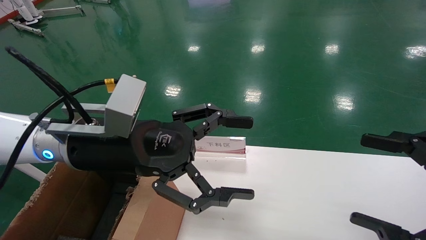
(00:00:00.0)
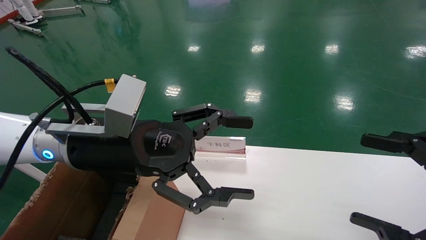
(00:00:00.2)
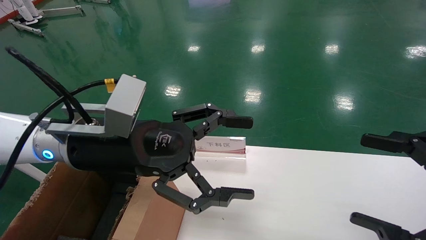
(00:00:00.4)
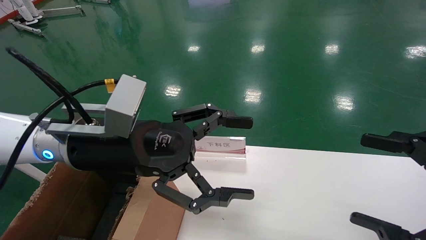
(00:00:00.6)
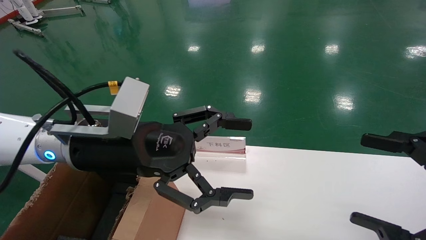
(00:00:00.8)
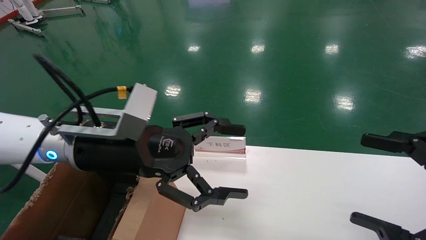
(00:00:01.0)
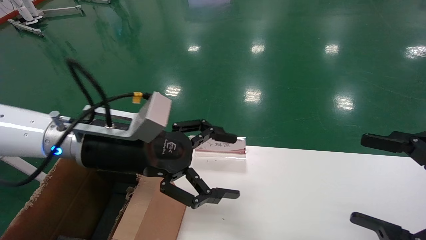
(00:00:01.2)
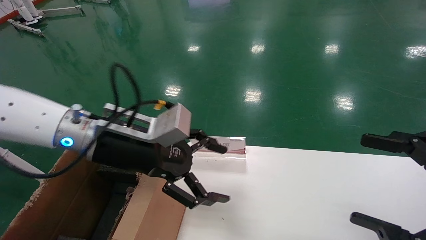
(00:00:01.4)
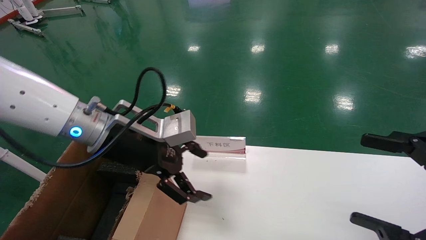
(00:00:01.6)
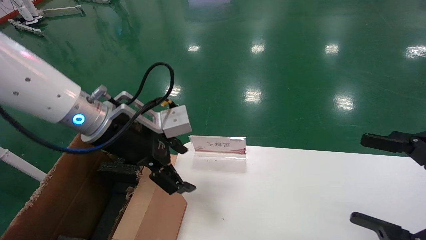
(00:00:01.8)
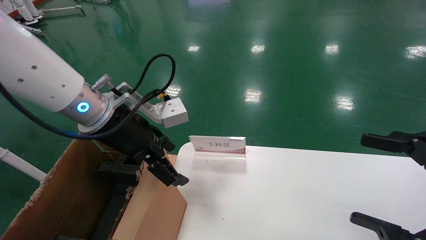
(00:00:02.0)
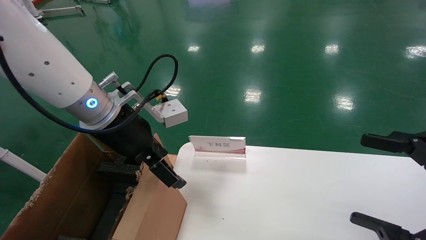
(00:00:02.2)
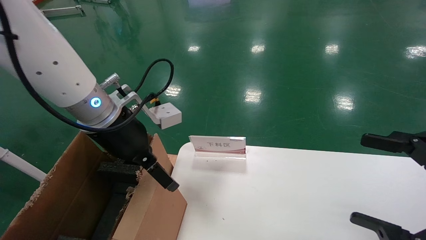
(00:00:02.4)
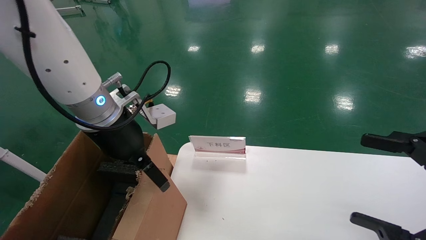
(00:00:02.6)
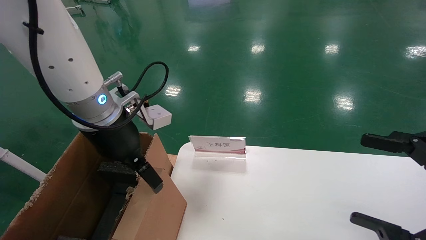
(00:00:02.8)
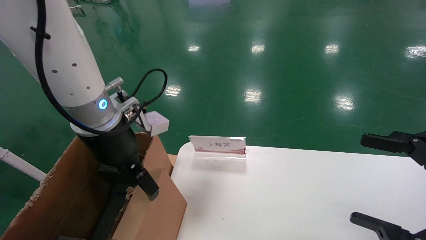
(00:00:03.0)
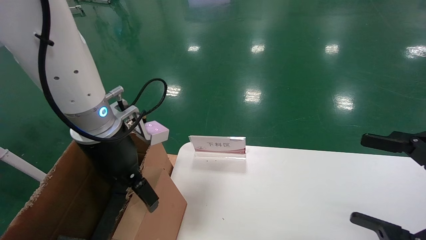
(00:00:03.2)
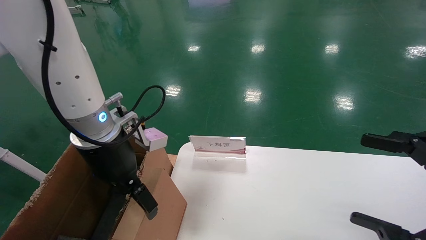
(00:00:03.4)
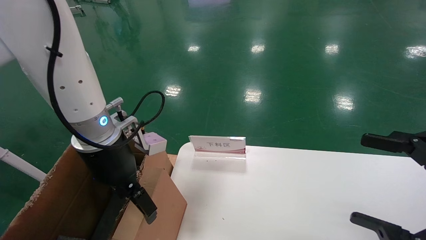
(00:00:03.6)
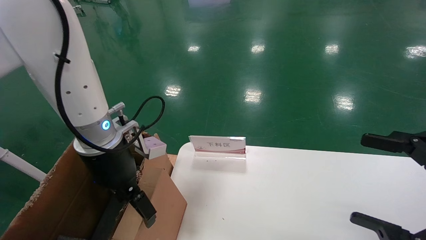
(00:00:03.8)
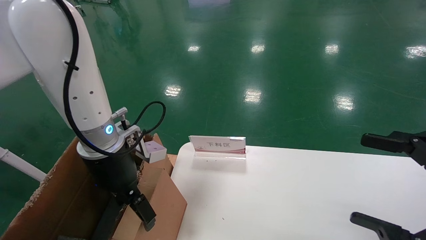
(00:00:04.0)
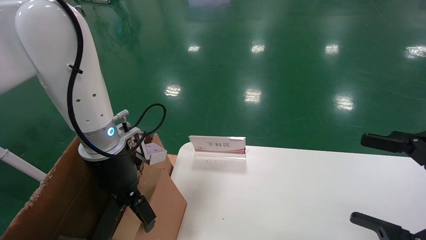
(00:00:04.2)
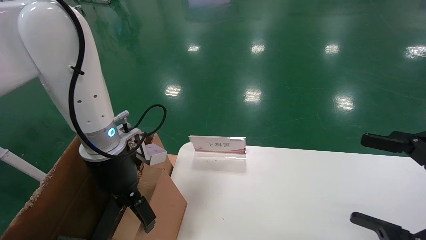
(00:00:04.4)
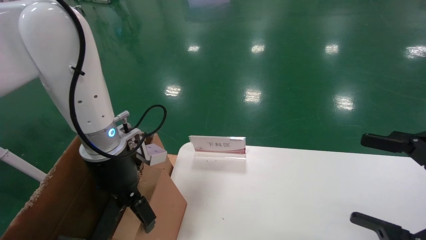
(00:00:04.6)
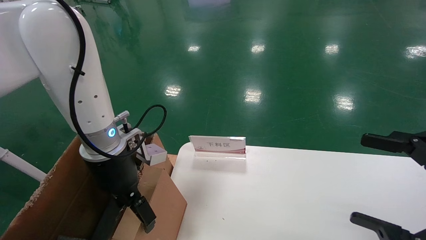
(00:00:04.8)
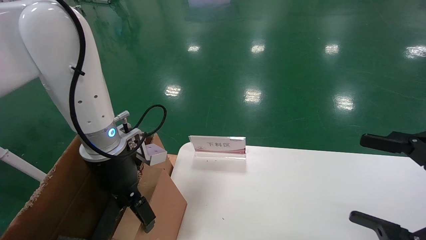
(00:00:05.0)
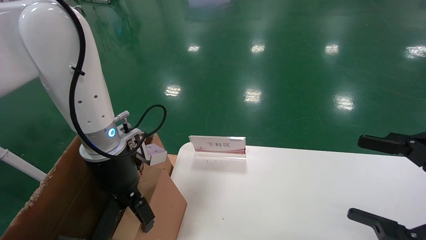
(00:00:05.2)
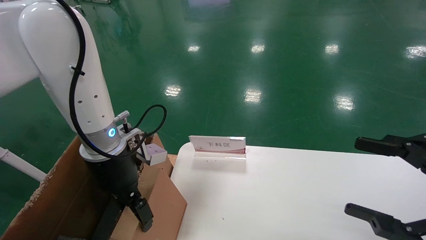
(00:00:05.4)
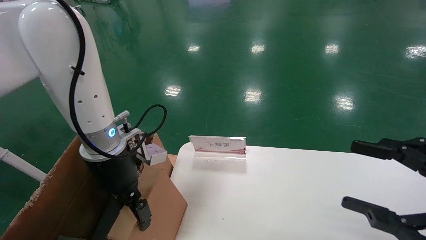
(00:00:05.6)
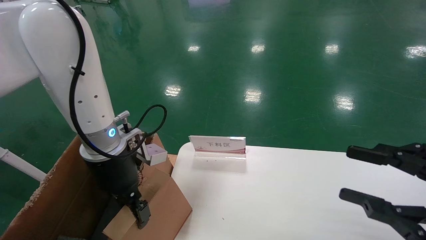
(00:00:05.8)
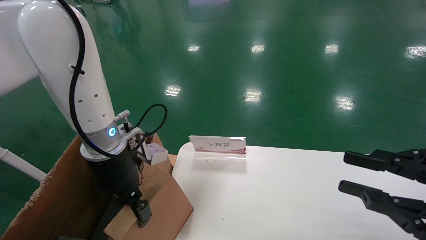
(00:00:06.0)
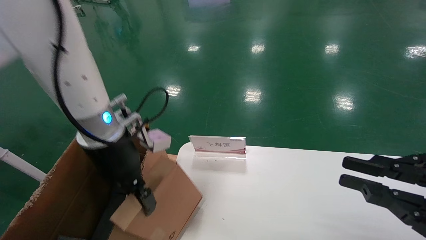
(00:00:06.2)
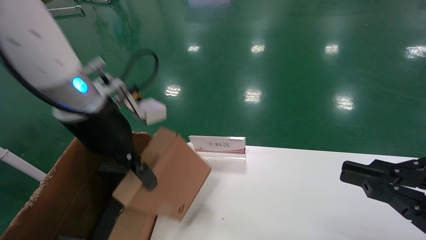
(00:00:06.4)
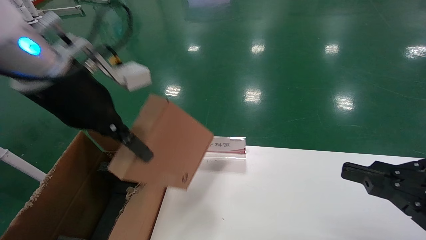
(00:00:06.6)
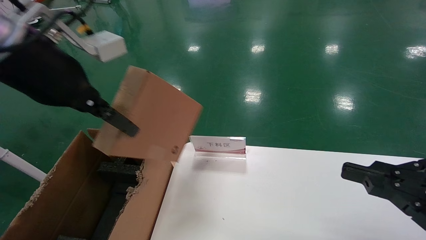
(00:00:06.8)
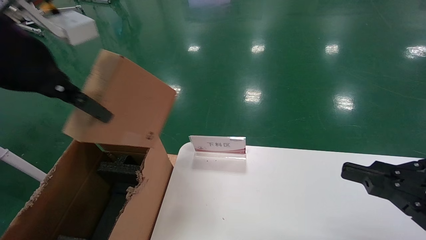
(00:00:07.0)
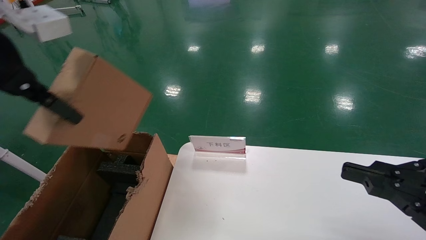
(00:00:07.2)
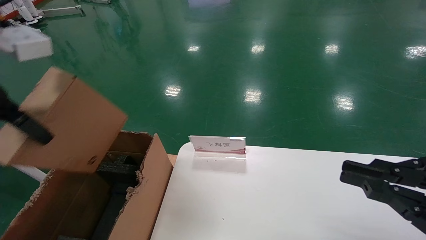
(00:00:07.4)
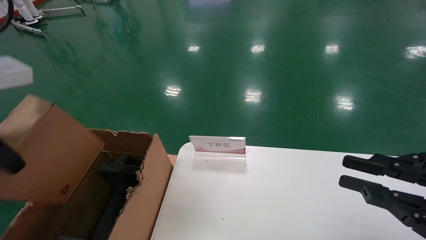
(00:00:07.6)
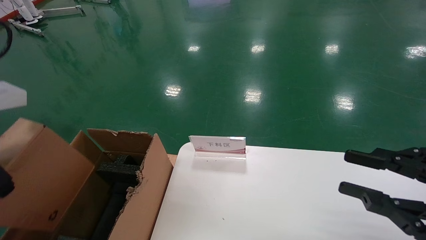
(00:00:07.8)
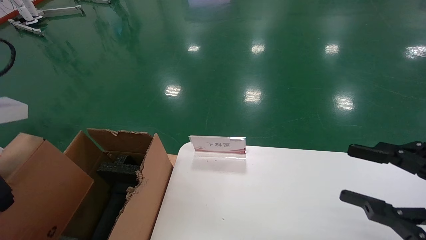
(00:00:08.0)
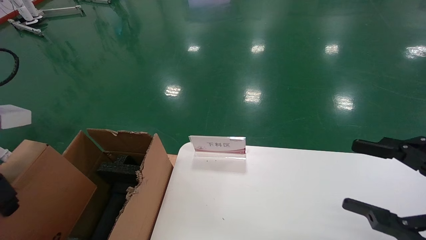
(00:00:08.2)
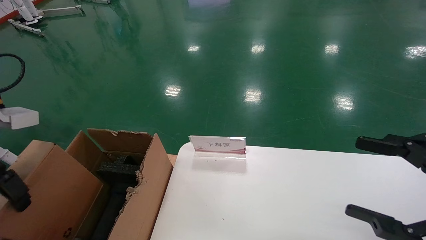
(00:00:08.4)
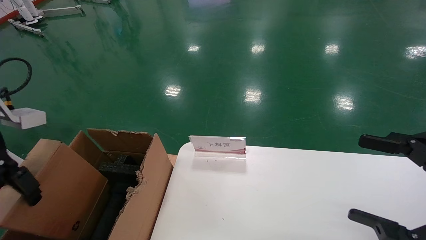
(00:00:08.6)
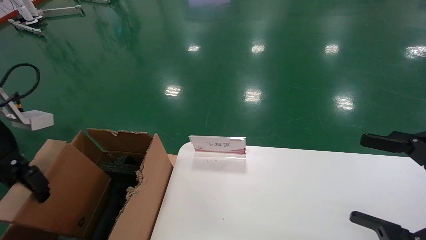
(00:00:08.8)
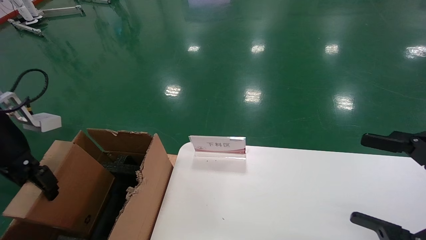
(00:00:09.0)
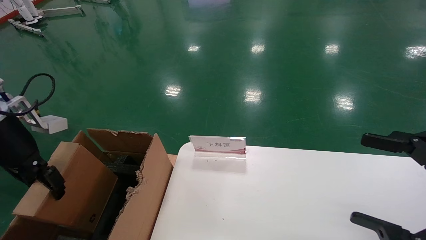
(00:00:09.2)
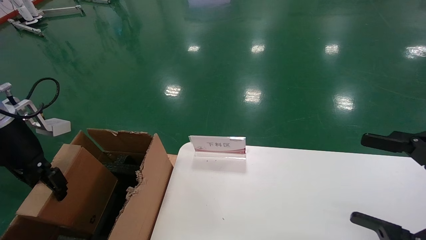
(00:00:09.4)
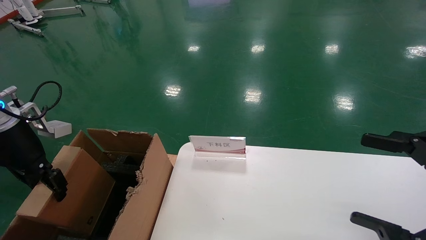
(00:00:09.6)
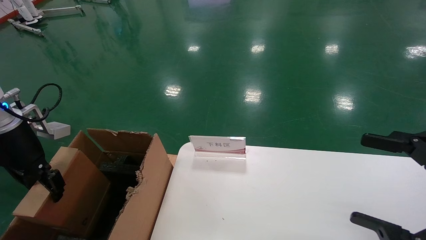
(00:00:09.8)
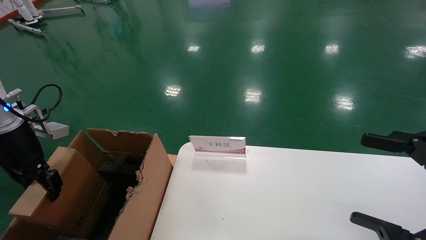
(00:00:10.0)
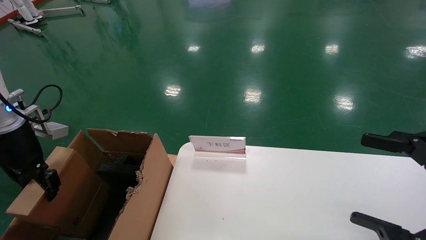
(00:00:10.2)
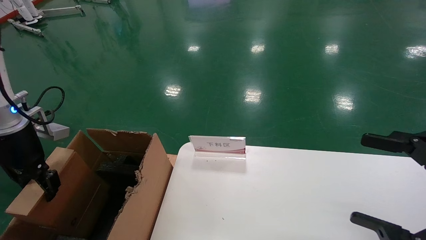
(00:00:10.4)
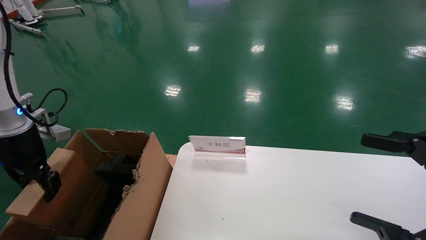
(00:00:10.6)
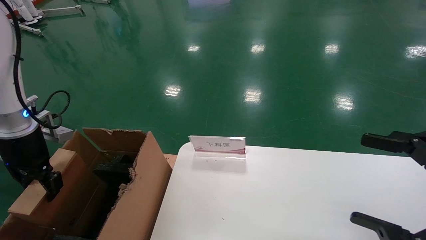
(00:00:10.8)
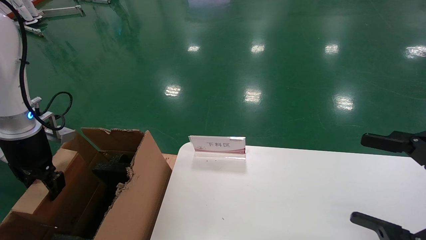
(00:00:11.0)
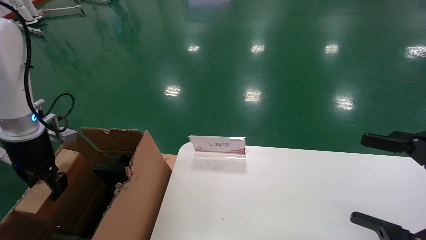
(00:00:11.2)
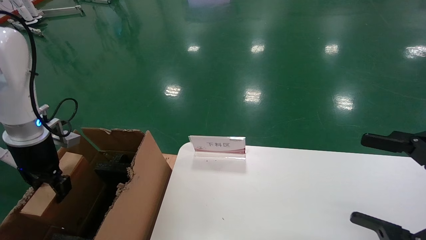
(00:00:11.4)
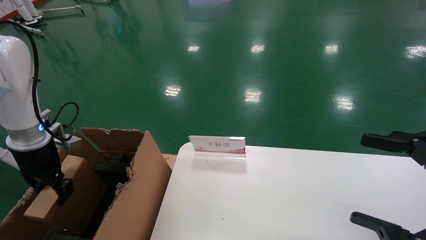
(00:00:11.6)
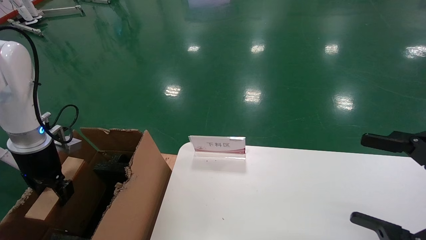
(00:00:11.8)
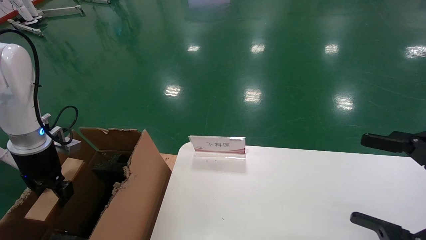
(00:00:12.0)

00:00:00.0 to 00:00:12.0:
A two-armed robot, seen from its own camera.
Task of the whole recording: pick up the small cardboard box and load it into the large cardboard box.
Step, 00:00:01.6 to 00:00:05.8: Pick up the mouse and power cord box.
00:00:03.0 to 00:00:04.4: The left gripper travels downward by roughly 5 cm.
00:00:04.4 to 00:00:06.0: The right gripper closes up; the left gripper closes.
00:00:06.0 to 00:00:07.6: The left gripper heads backward, upward and to the left, covering approximately 20 cm. The right gripper closes its fingers.
00:00:07.6 to 00:00:09.0: The right gripper opens. The left gripper heads downward, forward and to the left, covering some 15 cm.
00:00:09.0 to 00:00:10.4: The left gripper ends up approximately 5 cm from where it was.
00:00:10.4 to 00:00:12.0: The left gripper is displaced downward by roughly 5 cm.

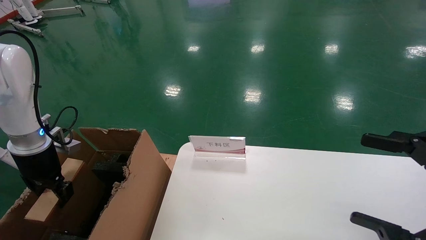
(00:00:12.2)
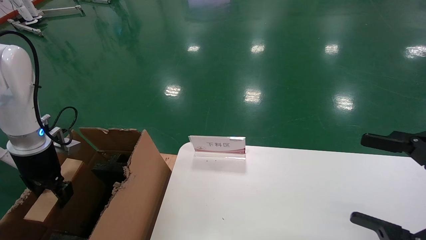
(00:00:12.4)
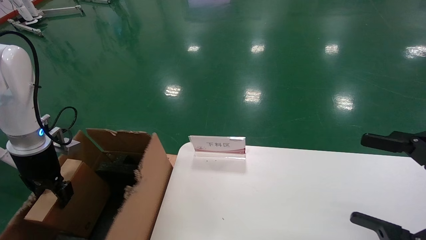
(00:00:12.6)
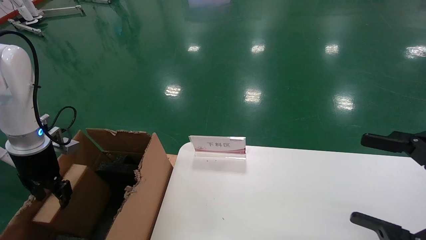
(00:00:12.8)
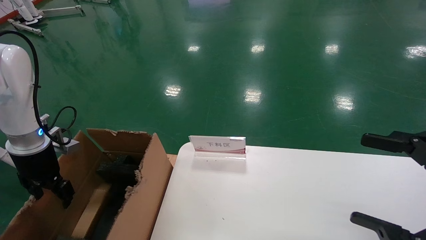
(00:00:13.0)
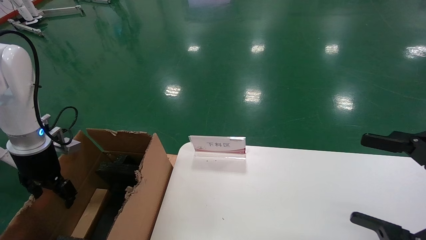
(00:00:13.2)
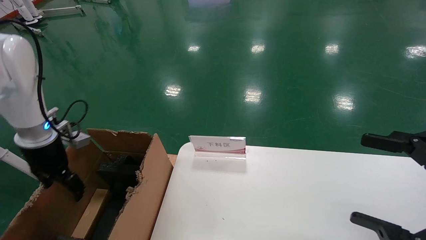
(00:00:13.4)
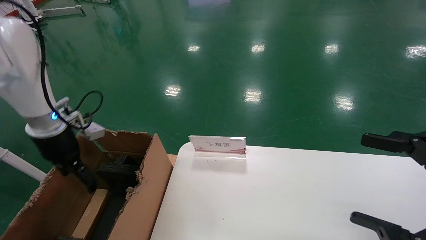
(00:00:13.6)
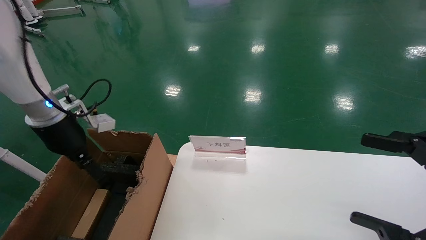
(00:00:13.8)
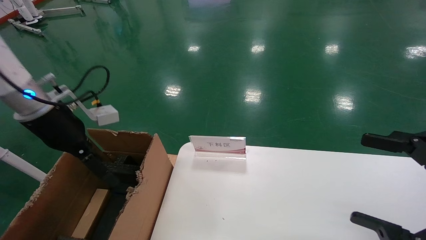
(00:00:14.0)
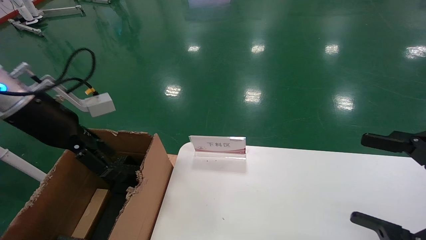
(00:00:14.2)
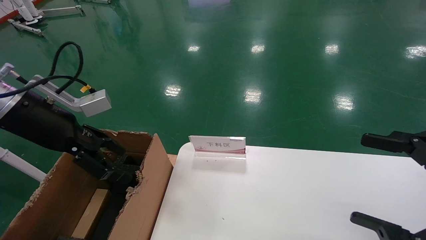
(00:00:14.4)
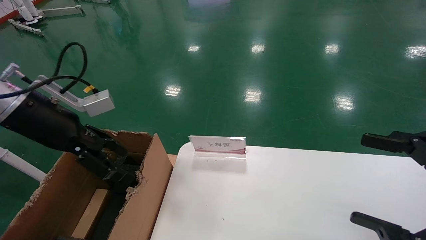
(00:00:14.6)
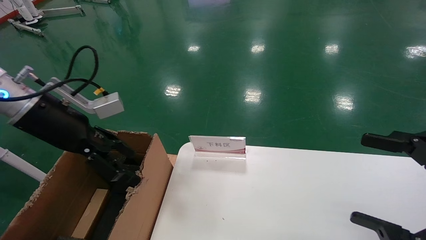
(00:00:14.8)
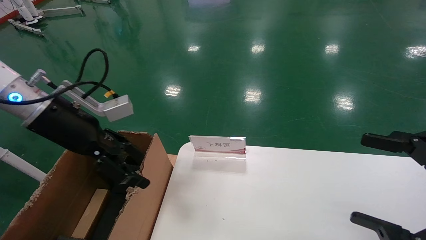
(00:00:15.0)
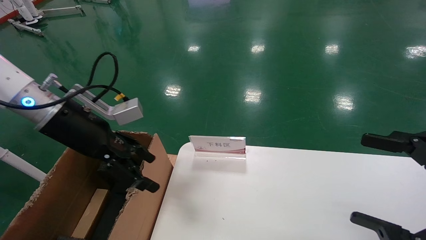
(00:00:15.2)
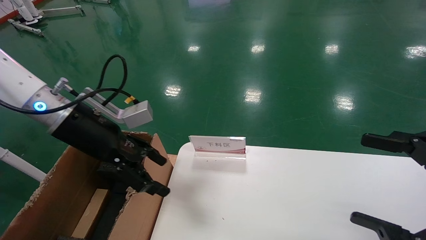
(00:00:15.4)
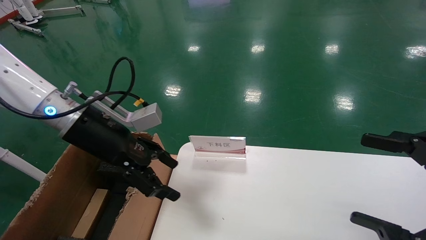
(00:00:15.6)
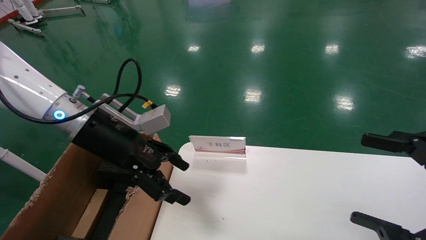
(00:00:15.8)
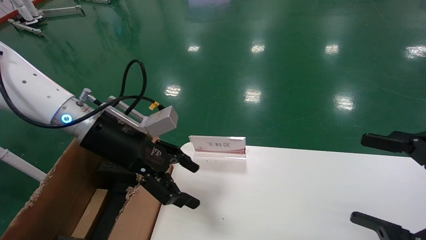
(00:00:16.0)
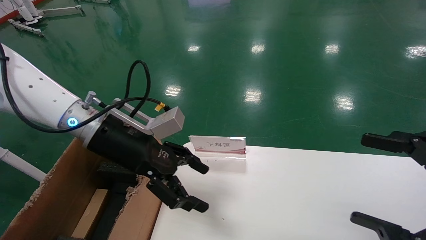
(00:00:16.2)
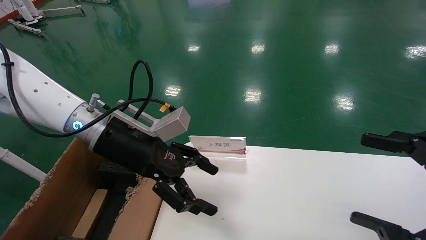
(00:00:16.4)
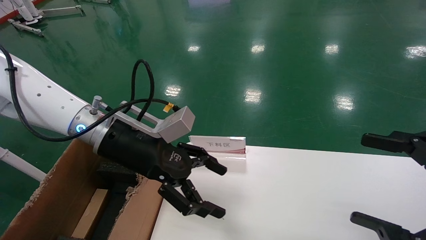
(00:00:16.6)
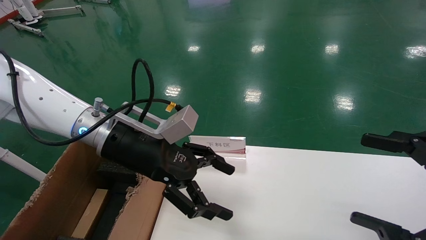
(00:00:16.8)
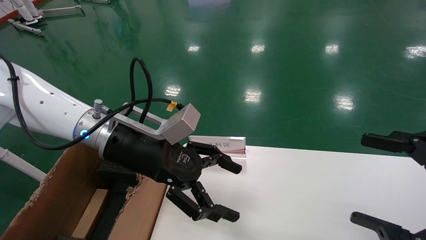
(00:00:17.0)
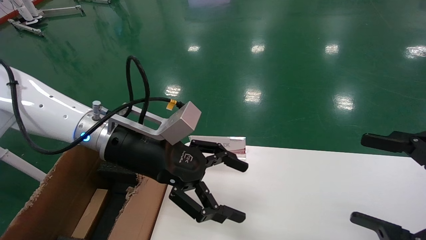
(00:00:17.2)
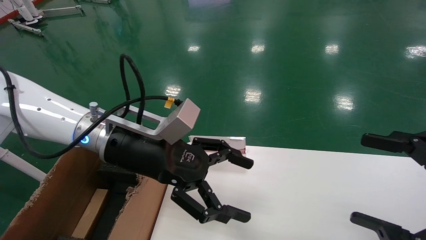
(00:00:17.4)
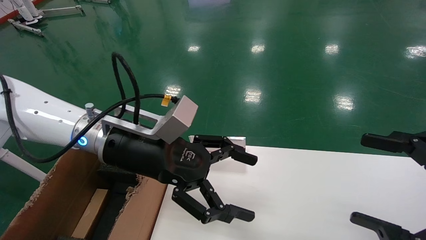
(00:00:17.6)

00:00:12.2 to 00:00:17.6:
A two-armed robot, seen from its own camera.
Task of the whole recording: pick up the small cardboard box and load it into the large cardboard box.
Step, 00:00:12.2 to 00:00:16.4: Place the mouse and power cord box into the case.
00:00:12.2 to 00:00:13.6: The left gripper changes place by some 5 cm, and opens its fingers.
00:00:13.6 to 00:00:15.0: The left gripper shifts approximately 10 cm to the right and upward.
00:00:15.0 to 00:00:16.2: The left gripper moves to the right, approximately 10 cm.
00:00:16.2 to 00:00:17.6: The left gripper changes place by approximately 5 cm.
